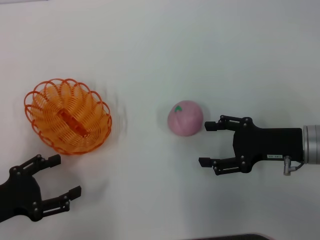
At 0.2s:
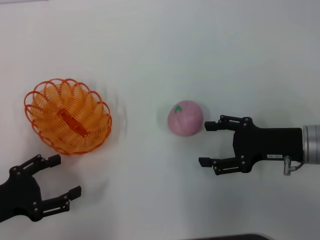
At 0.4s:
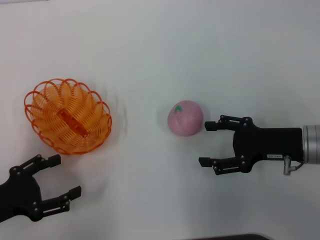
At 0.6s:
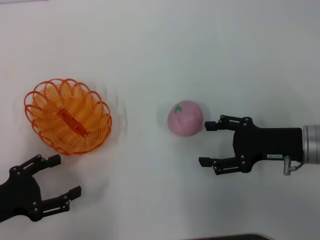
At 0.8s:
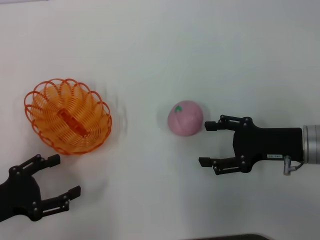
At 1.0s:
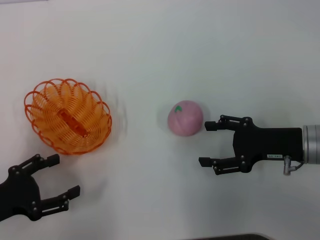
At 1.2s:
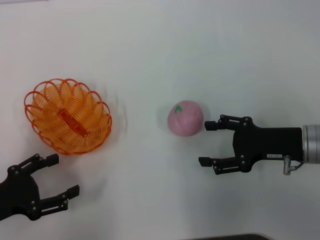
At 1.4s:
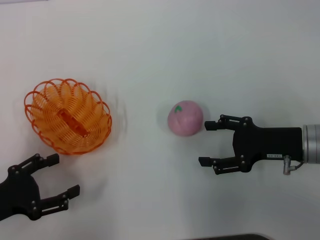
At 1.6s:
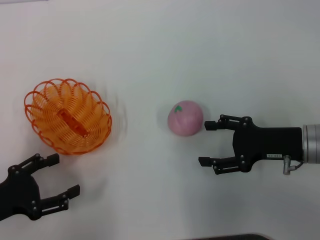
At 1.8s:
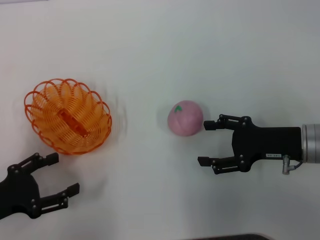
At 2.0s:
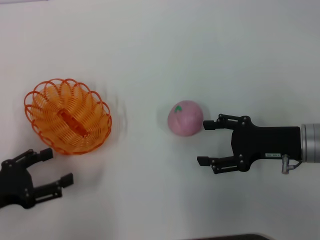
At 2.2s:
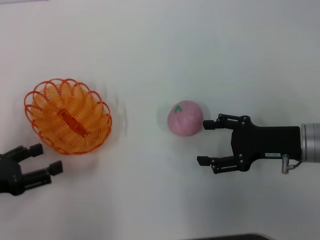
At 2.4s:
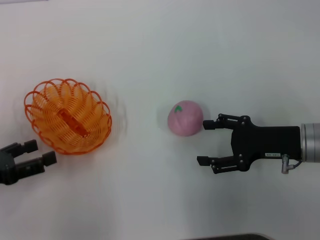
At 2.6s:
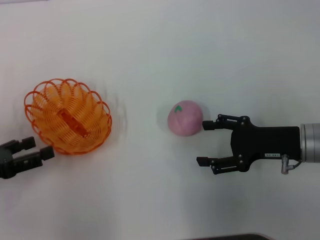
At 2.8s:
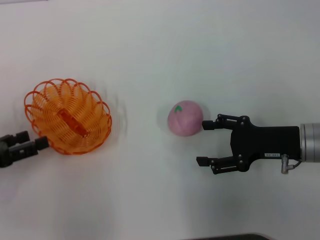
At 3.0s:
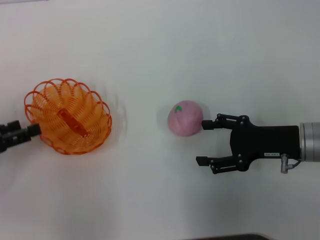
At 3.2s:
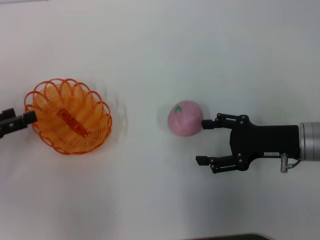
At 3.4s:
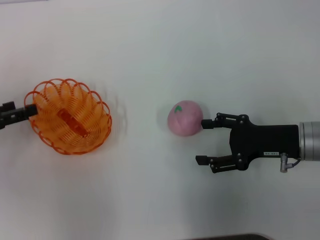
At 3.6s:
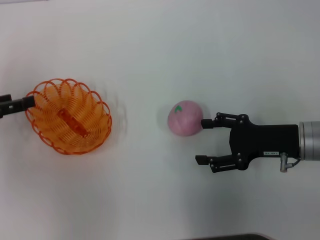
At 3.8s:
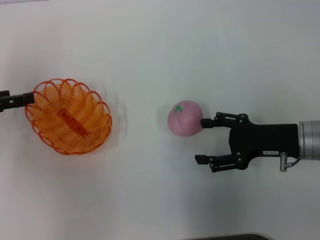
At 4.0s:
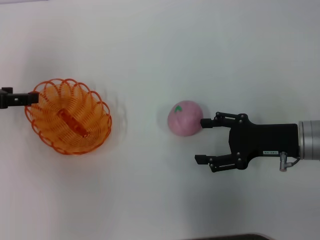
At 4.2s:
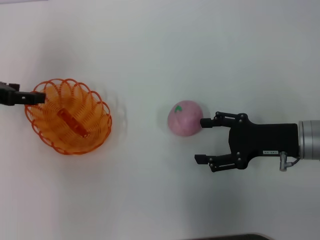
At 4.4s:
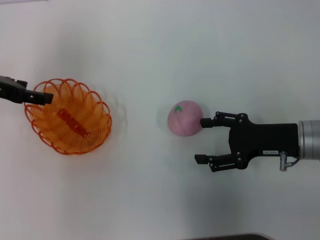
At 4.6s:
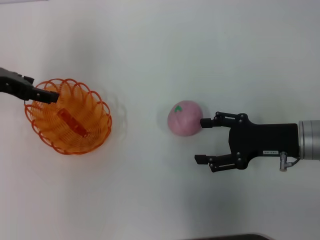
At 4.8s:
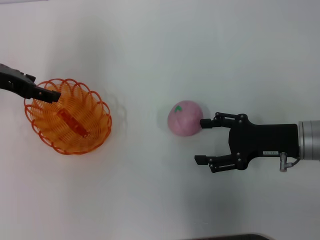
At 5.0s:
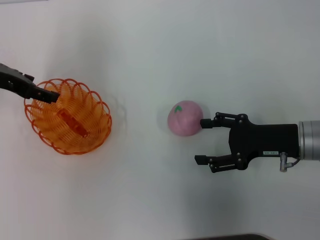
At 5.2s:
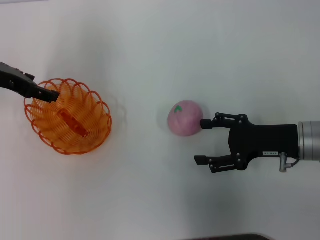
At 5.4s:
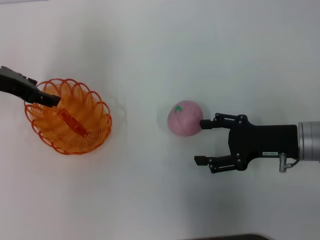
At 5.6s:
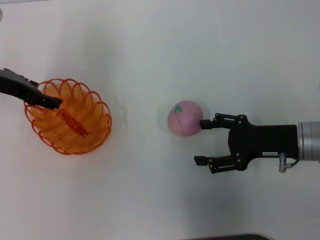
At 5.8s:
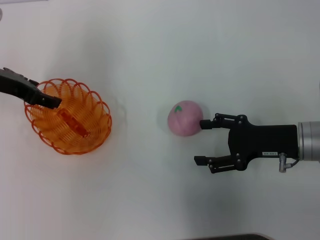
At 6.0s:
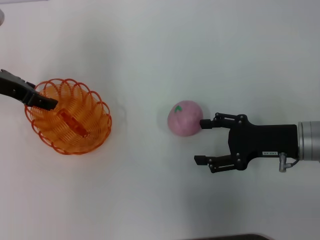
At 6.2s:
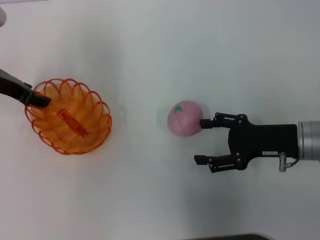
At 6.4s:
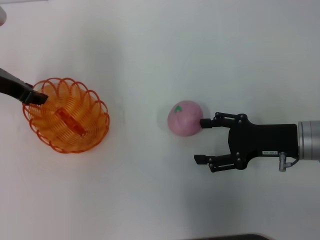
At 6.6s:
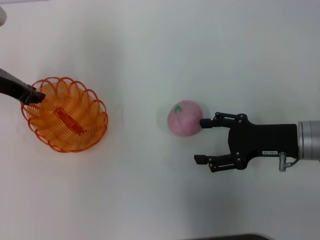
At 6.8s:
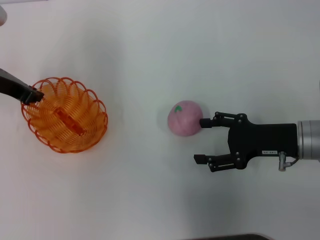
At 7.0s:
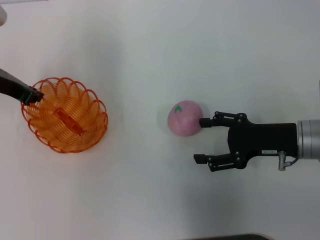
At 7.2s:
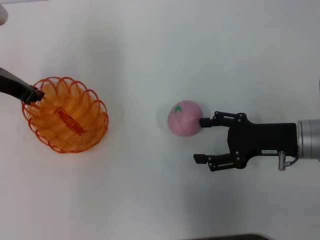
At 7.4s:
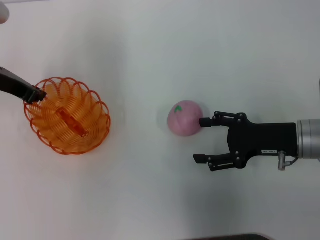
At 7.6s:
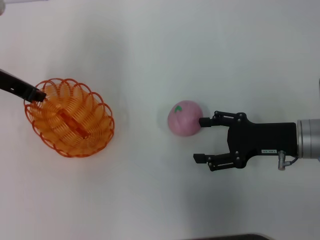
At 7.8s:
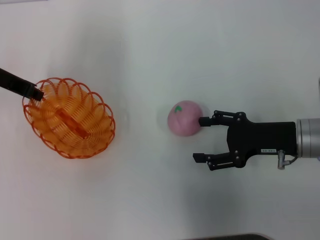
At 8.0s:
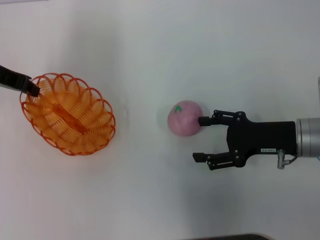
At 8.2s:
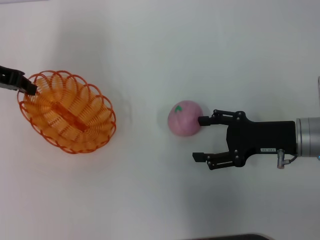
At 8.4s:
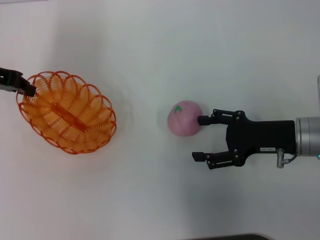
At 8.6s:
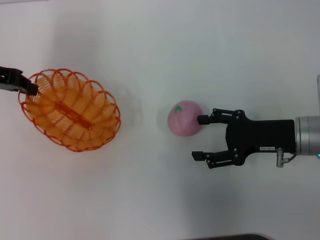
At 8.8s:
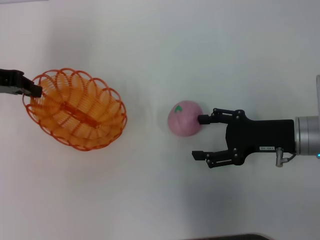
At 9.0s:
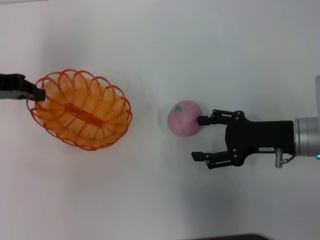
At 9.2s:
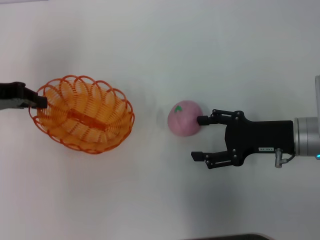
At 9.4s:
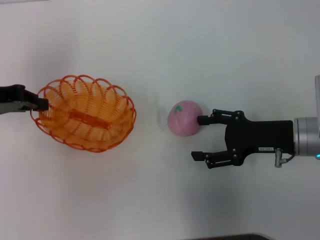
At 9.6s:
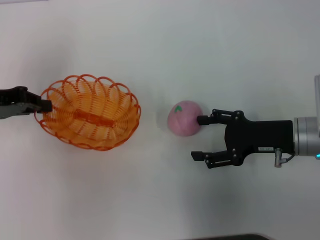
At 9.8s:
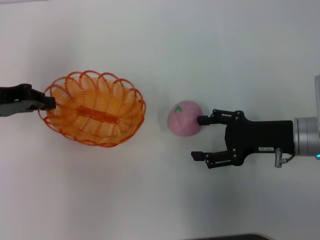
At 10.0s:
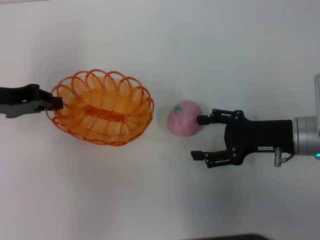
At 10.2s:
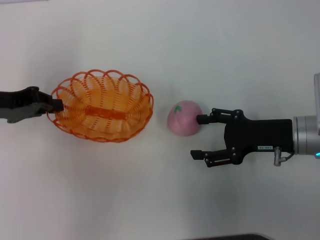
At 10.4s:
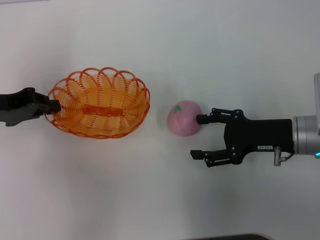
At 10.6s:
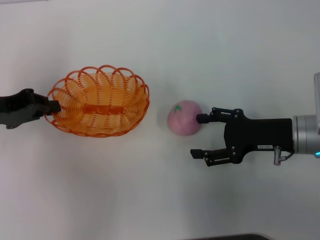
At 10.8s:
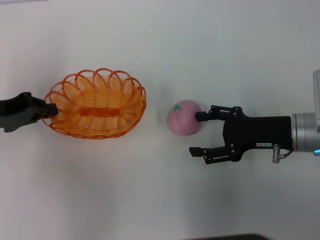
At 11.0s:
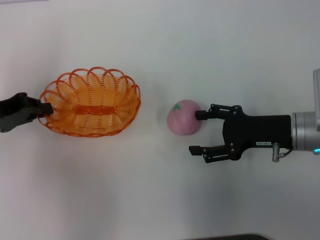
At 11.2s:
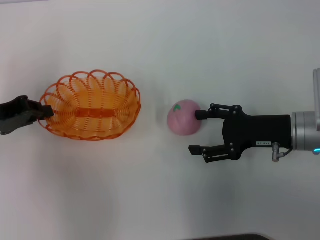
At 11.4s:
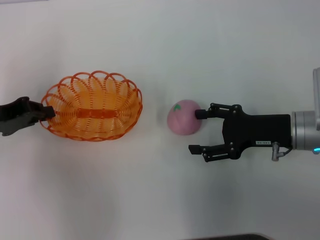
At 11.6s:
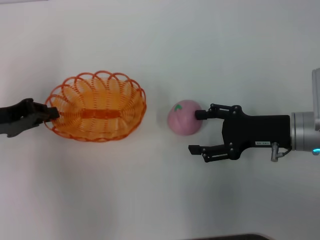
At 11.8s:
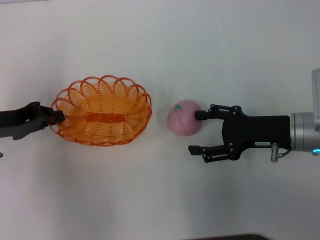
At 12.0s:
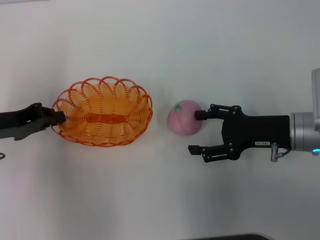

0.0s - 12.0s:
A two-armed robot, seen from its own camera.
Step, 0.0s - 8.6s: Pick up the basket with the left gripper.
0.0s - 1.6s: Neither gripper changes place.
1.6s - 3.0s: The left gripper goes roughly 5 cm forward.
3.0s - 4.4s: The left gripper is displaced forward, upward and to the right by roughly 15 cm.
4.4s - 6.0s: There are only small adjustments of the grippers.
6.0s - 7.6s: The left gripper closes its fingers.
7.6s - 9.0s: The left gripper ends up approximately 5 cm from where it was.
9.0s - 10.4s: The left gripper shifts some 5 cm backward.
10.4s - 12.0s: There are only small adjustments of the grippers.

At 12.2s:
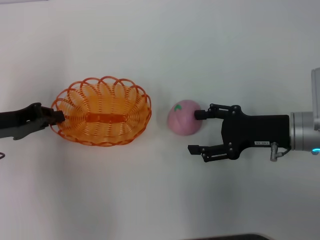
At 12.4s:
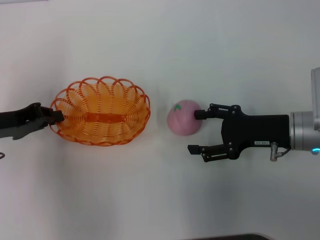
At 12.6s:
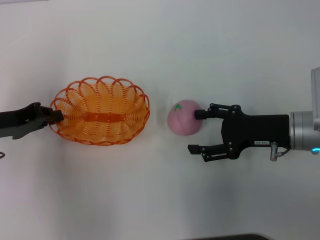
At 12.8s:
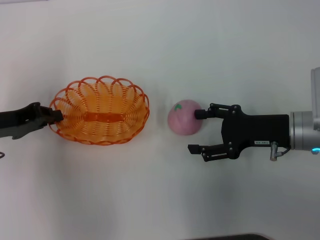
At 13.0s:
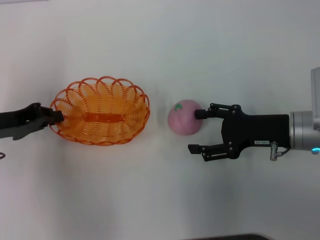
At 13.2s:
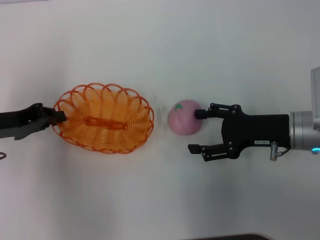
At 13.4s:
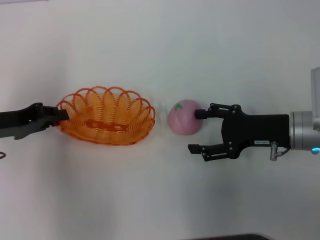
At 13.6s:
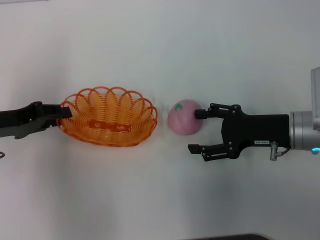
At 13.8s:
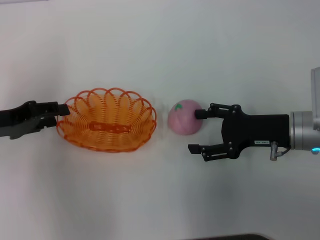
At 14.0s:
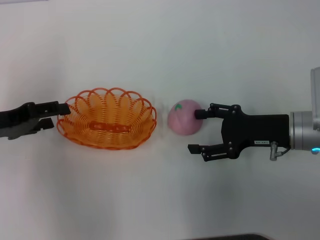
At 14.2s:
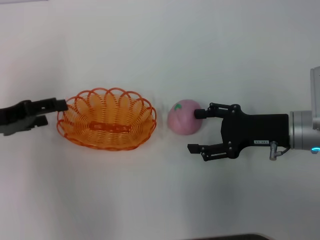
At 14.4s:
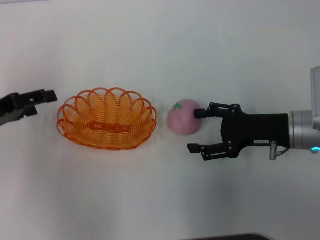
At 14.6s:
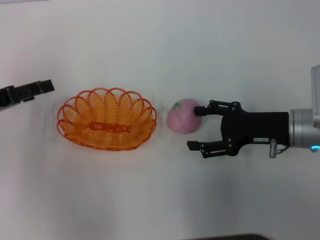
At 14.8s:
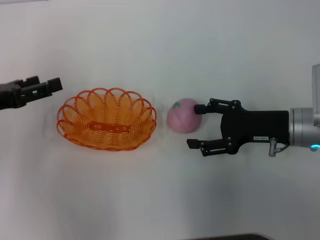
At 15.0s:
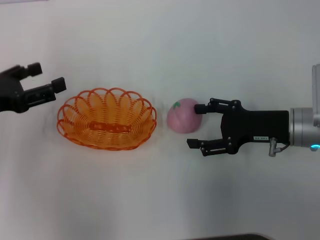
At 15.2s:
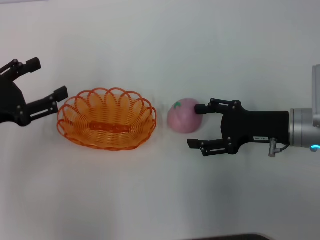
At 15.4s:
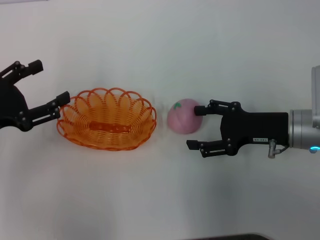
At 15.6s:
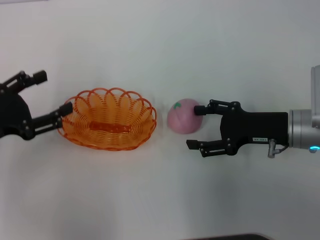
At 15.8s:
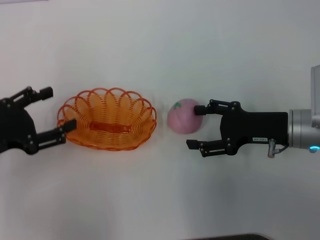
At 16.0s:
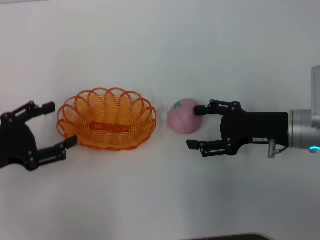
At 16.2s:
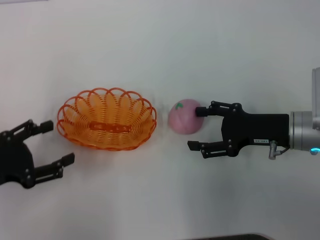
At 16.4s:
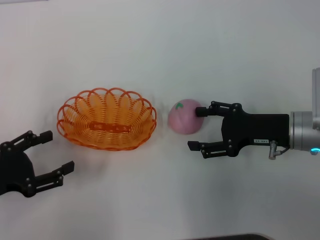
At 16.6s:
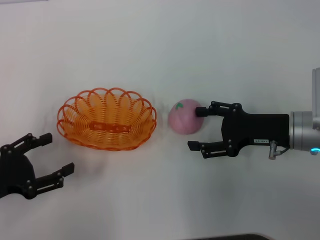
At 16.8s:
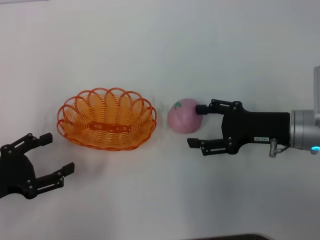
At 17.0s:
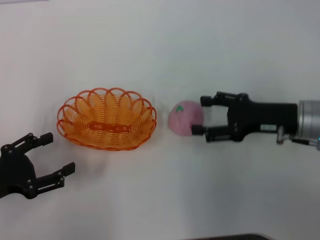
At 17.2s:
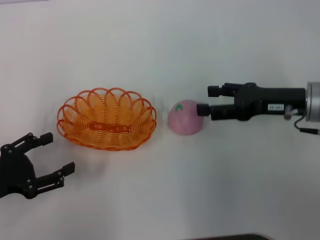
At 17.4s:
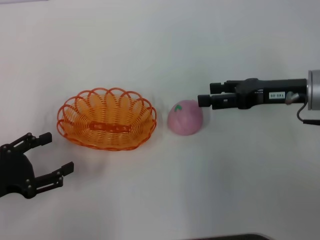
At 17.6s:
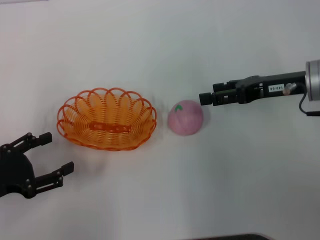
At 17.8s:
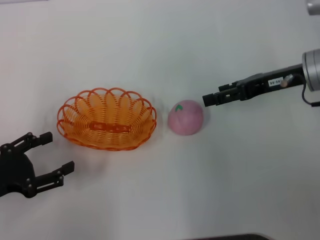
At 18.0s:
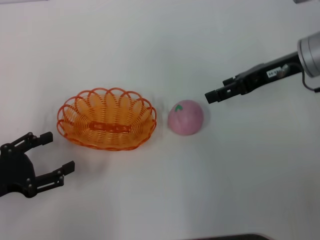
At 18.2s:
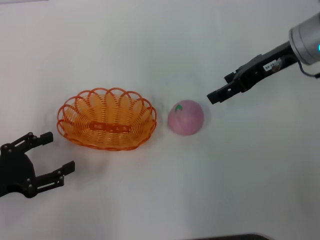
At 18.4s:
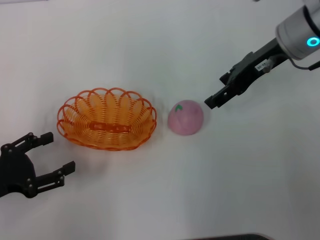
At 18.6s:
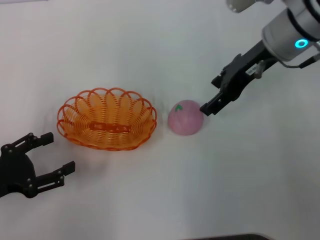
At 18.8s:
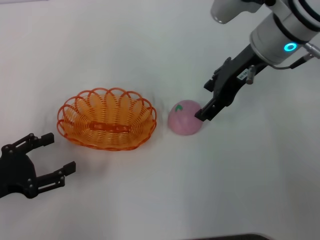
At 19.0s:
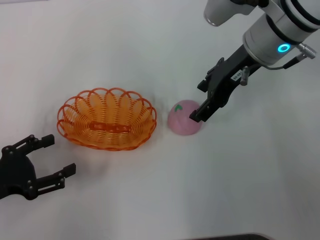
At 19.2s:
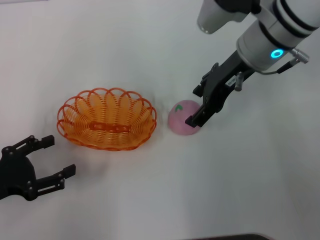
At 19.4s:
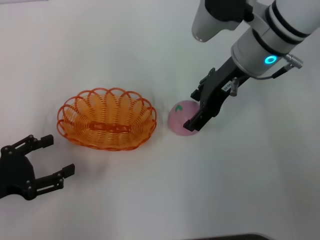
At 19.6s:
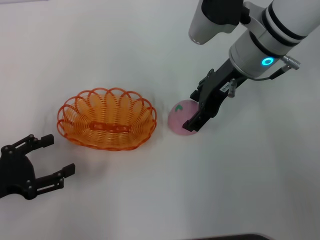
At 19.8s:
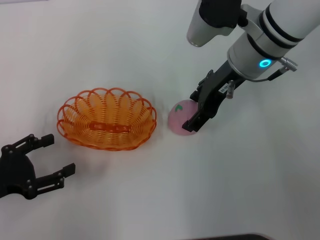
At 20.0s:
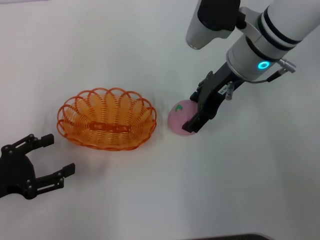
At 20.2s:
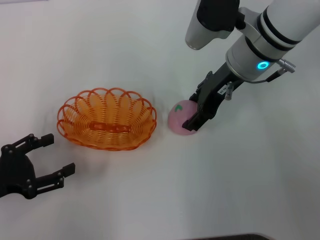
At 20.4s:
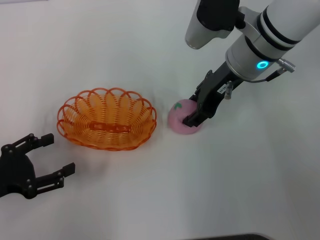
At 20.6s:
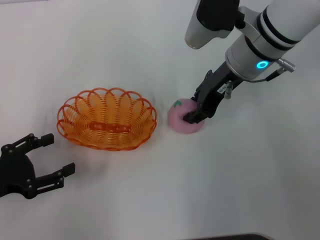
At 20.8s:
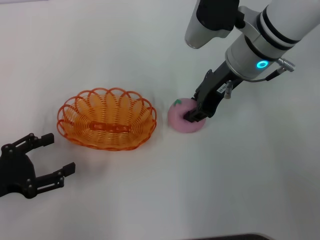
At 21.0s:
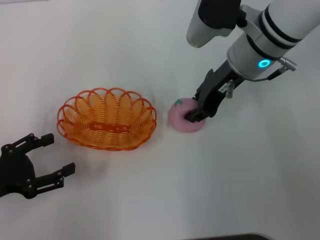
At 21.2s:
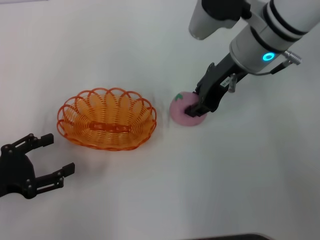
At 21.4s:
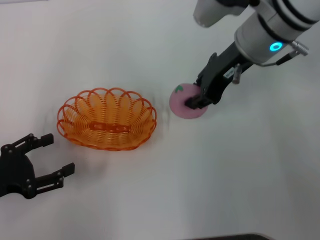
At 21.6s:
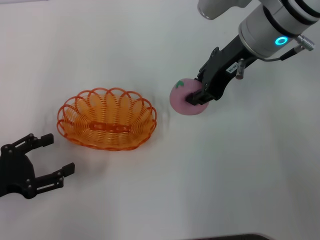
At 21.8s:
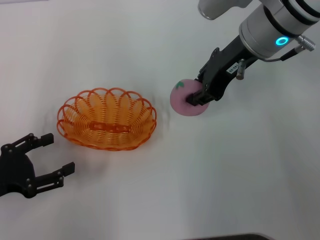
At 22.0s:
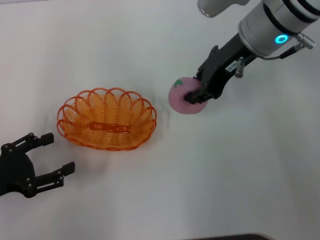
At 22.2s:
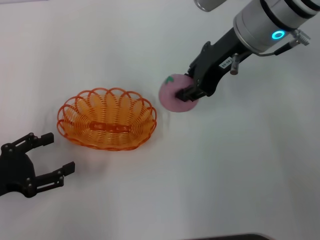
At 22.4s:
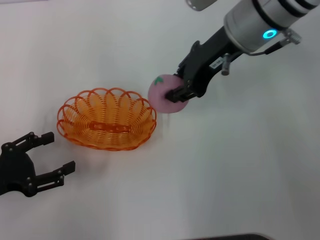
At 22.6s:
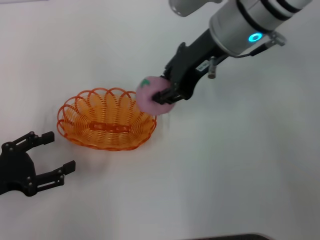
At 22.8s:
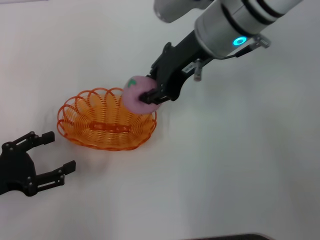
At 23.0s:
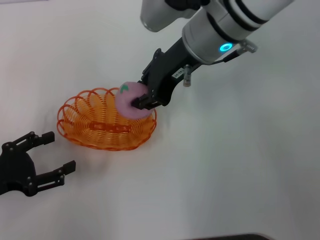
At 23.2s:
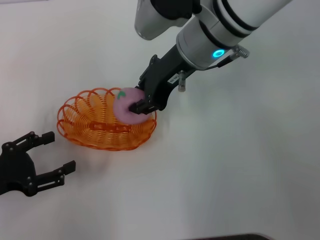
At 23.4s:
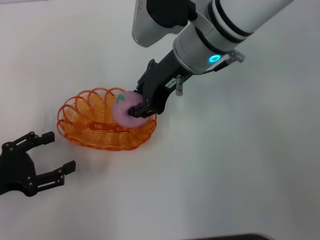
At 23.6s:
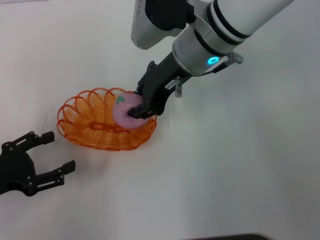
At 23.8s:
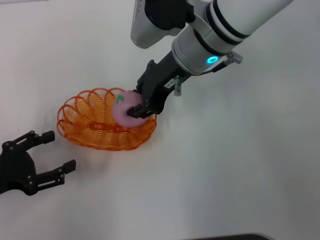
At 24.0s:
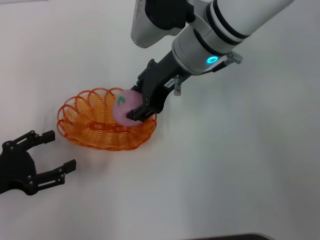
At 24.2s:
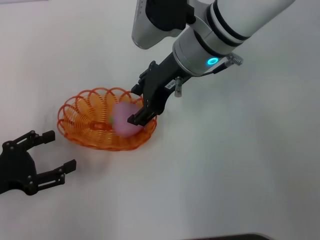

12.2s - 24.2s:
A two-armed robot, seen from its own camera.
Step, 12.2s - 16.4s: Place the basket in the center of view with the left gripper.
Step, 16.6s - 22.0s: Pick up the peach with the right gripper.
12.2s - 13.8s: The left gripper opens up.
13.8s - 15.2s: The left gripper opens.
15.2s - 16.6s: The left gripper travels backward by roughly 5 cm.
16.6s - 18.2s: The right gripper moves upward and forward, about 15 cm.
18.2s - 19.8s: The right gripper is displaced to the left by approximately 10 cm.
19.8s - 21.2s: The right gripper closes up.
21.2s - 22.6s: The right gripper moves approximately 5 cm.
22.6s - 24.2s: The right gripper ends up about 5 cm from where it was.
